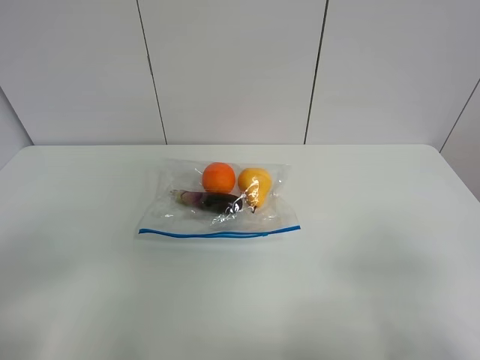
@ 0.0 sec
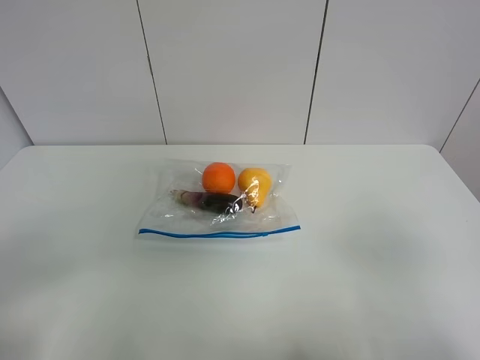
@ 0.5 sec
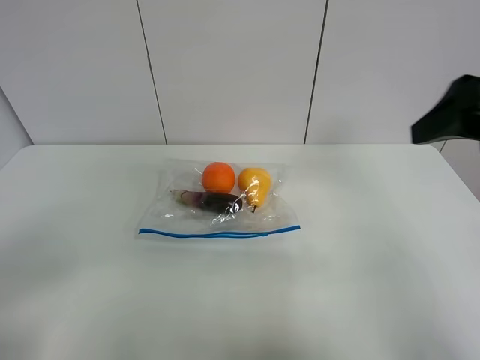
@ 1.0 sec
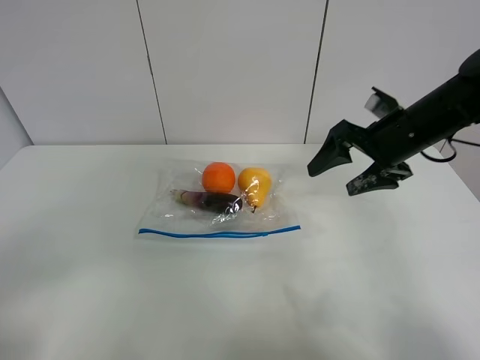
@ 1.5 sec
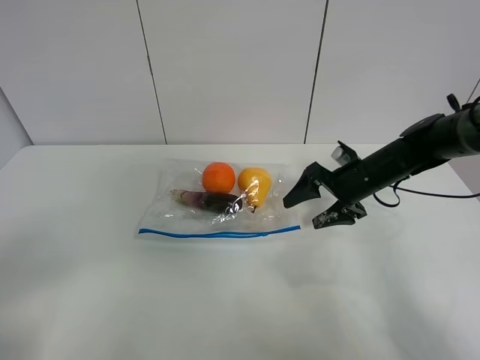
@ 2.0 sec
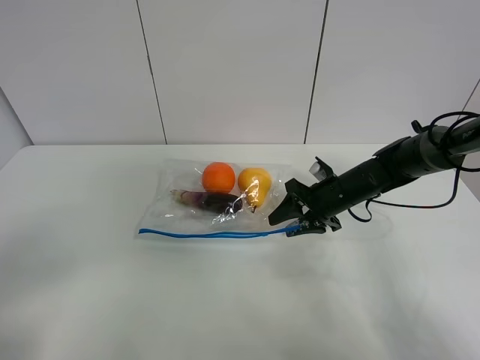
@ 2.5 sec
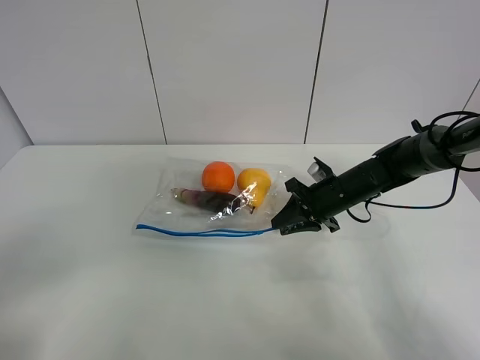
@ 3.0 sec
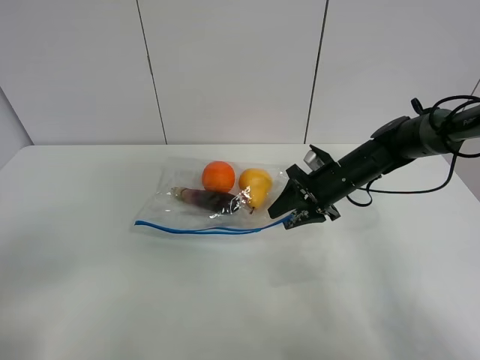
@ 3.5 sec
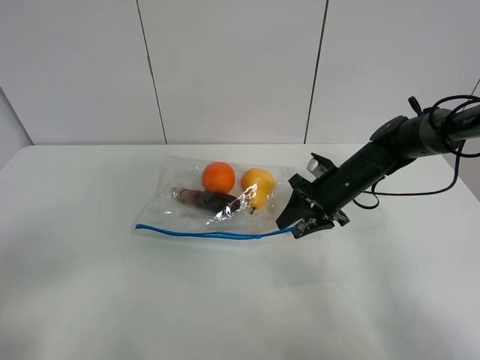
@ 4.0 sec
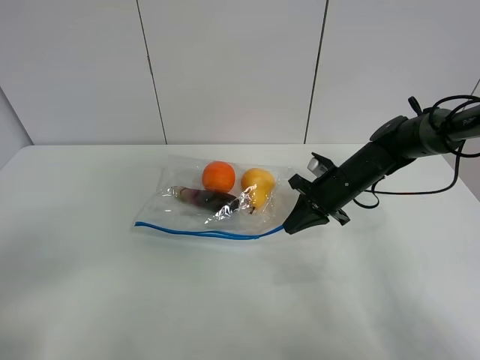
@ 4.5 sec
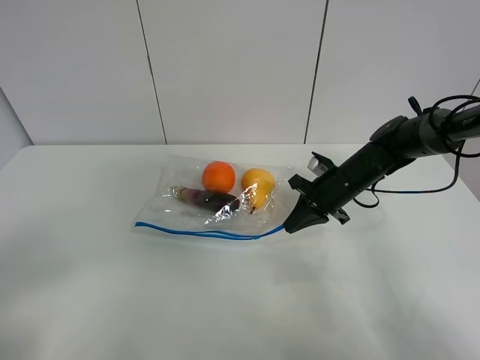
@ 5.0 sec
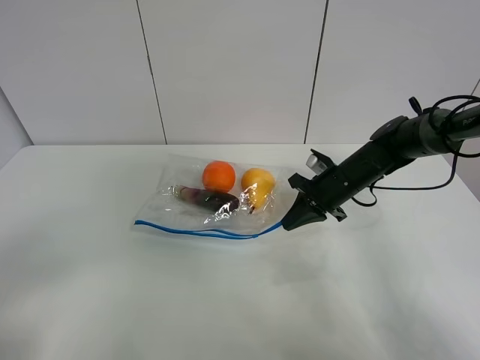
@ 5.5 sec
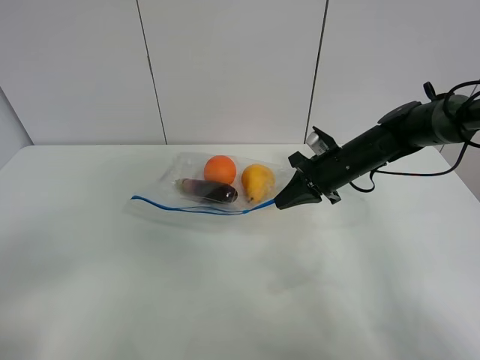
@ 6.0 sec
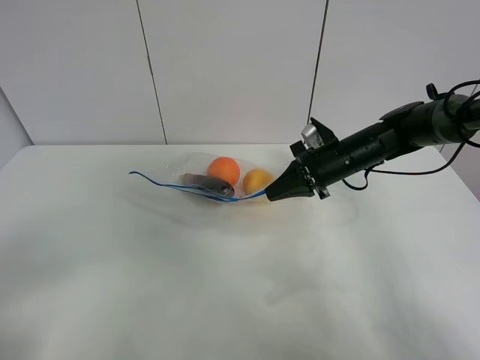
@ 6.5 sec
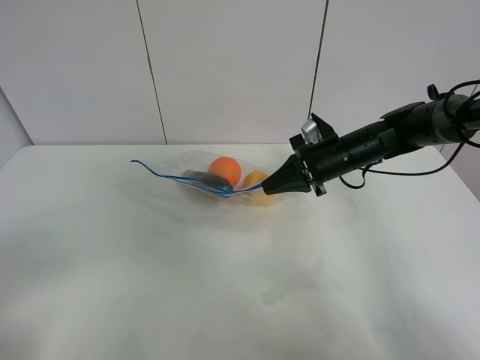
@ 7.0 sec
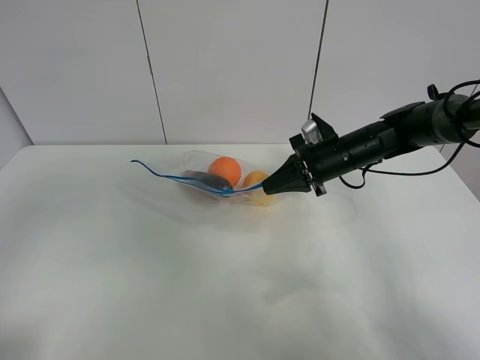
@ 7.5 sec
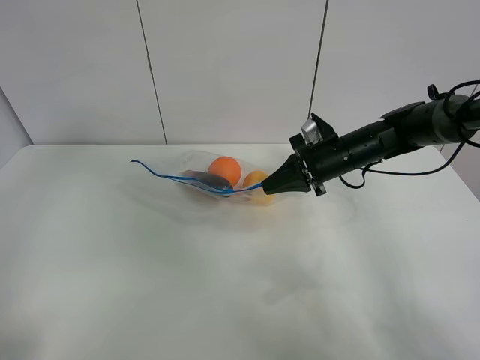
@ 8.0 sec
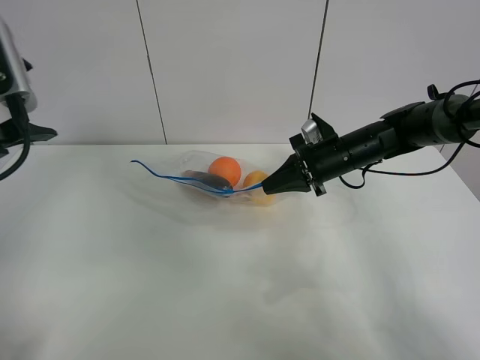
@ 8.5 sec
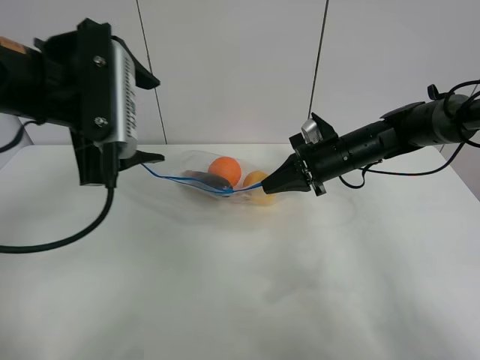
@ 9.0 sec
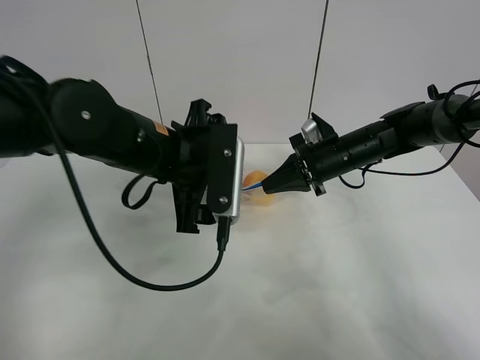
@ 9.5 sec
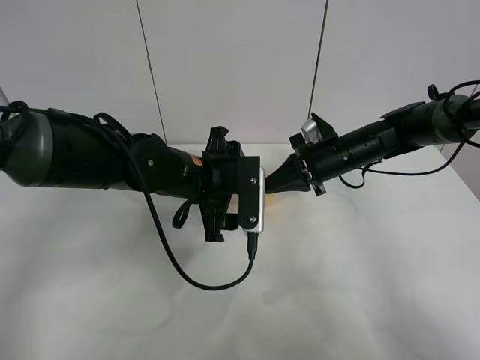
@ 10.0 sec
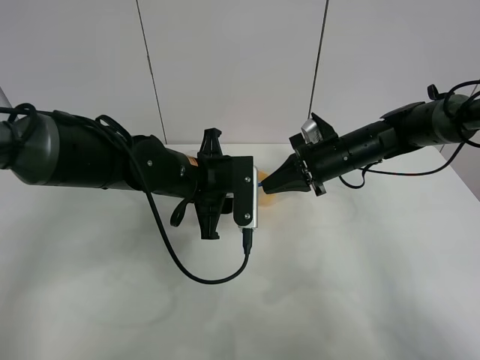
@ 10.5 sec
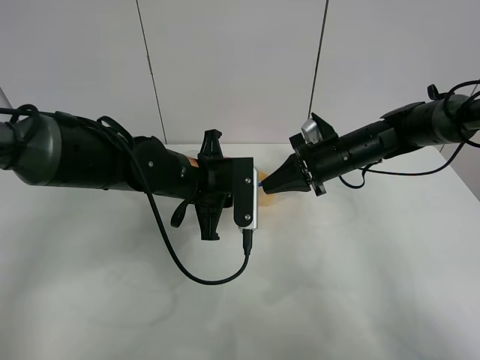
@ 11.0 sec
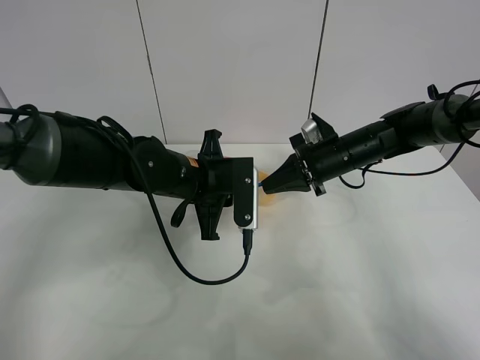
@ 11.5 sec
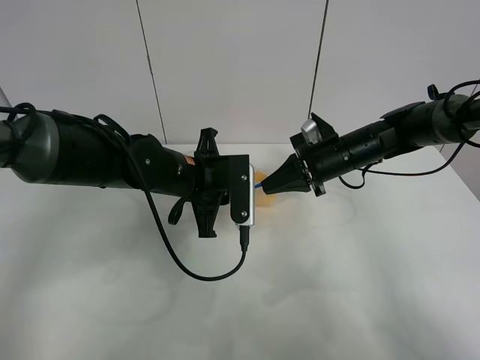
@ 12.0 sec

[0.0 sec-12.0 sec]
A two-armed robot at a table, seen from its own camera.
Step, 0.0 sec to 4.5 sec: Grasp the fruit bag with right gripper.
Step, 5.0 sec to 7.0 sec: Lift the fruit bag with your right gripper.
0.0 sec to 2.0 sec: The right gripper is displaced forward by approximately 35 cm.
2.0 sec to 4.0 sec: The right gripper closes.
4.0 sec to 6.0 sec: The right gripper closes.
6.0 sec to 8.0 sec: The left gripper shifts roughly 25 cm forward and upward.
8.0 sec to 10.0 sec: The left gripper is displaced to the right and downward by approximately 30 cm.
10.0 sec to 12.0 sec: The left gripper closes its fingers.

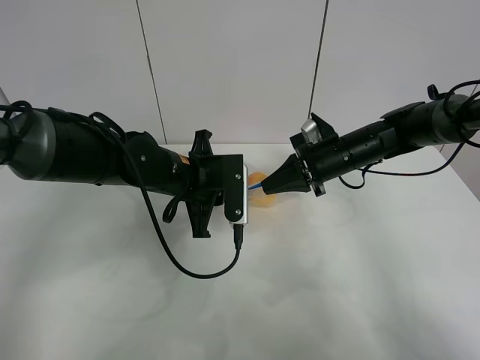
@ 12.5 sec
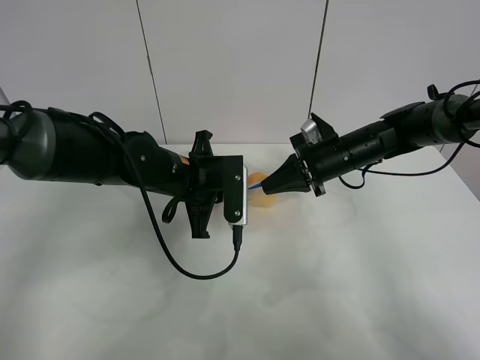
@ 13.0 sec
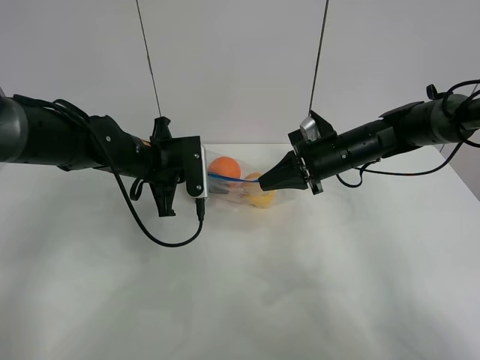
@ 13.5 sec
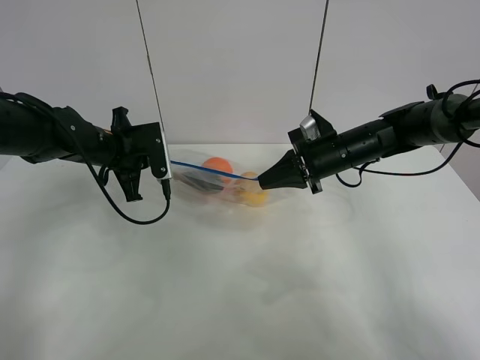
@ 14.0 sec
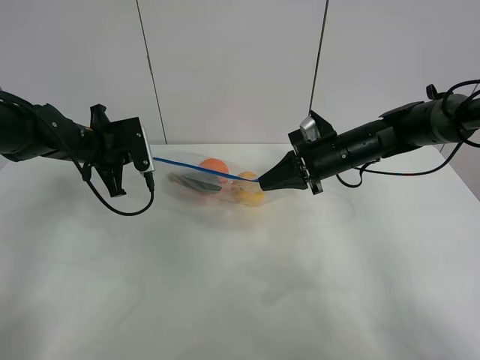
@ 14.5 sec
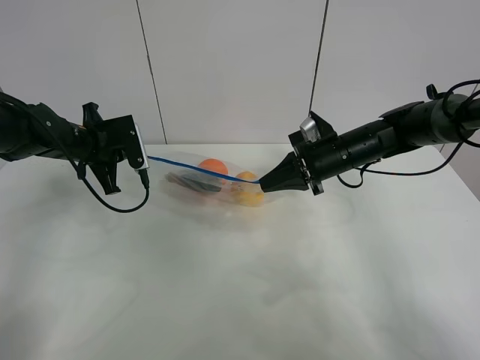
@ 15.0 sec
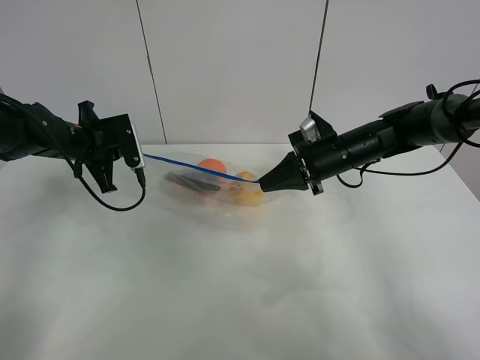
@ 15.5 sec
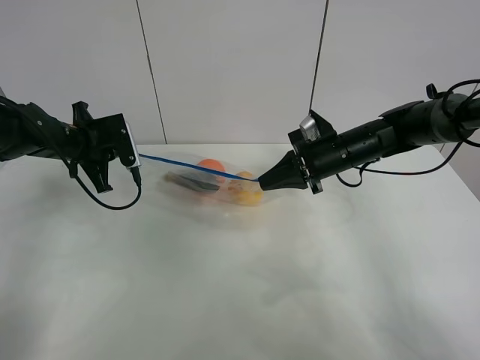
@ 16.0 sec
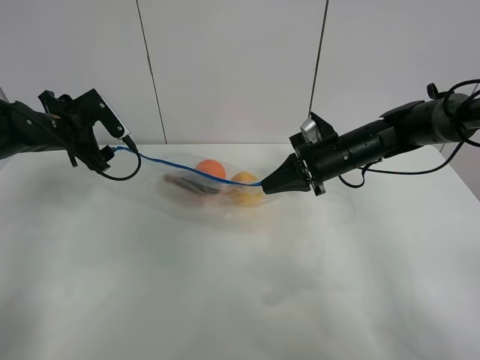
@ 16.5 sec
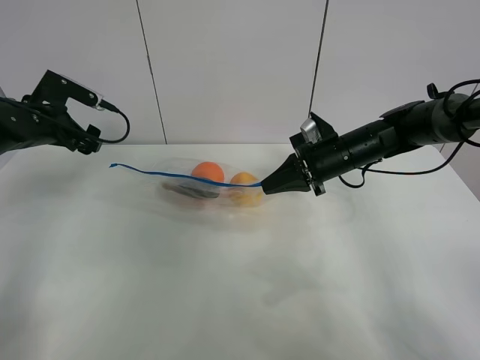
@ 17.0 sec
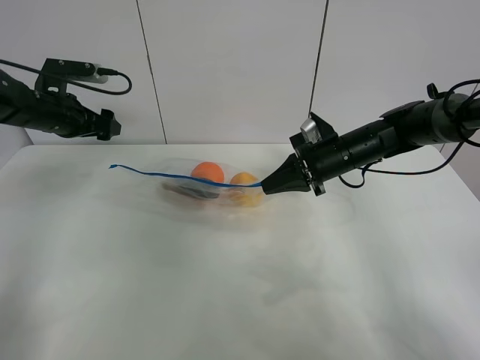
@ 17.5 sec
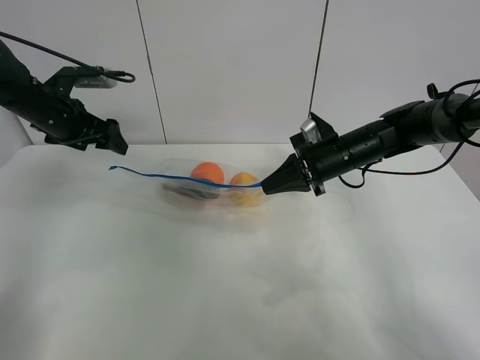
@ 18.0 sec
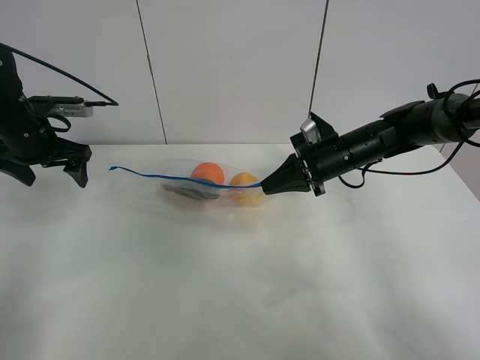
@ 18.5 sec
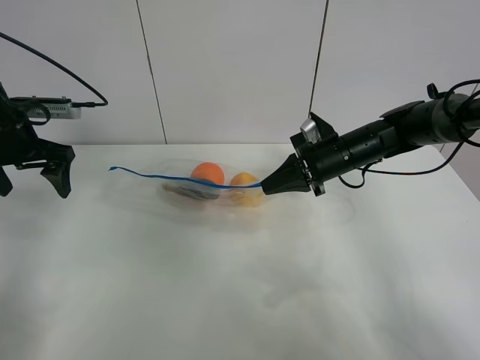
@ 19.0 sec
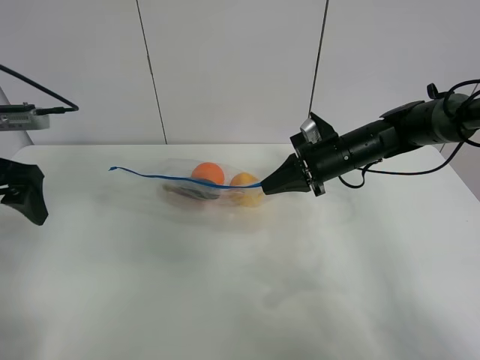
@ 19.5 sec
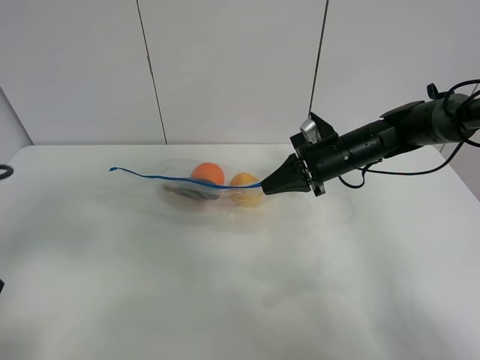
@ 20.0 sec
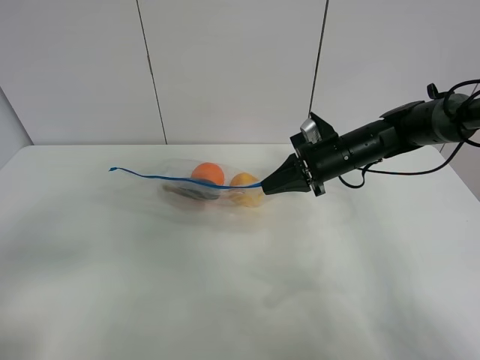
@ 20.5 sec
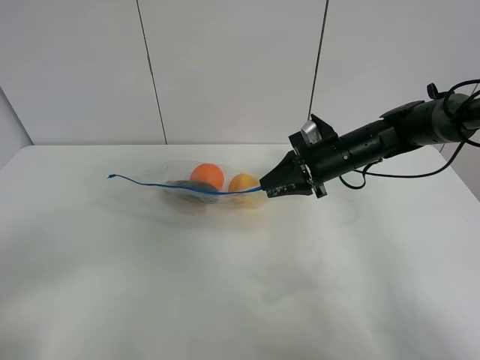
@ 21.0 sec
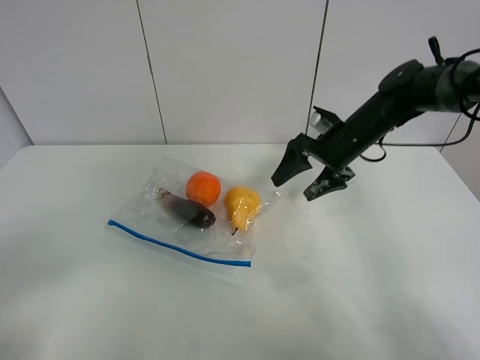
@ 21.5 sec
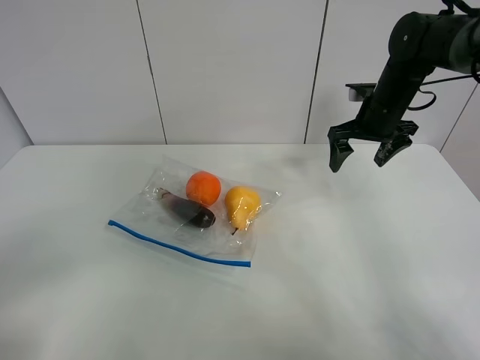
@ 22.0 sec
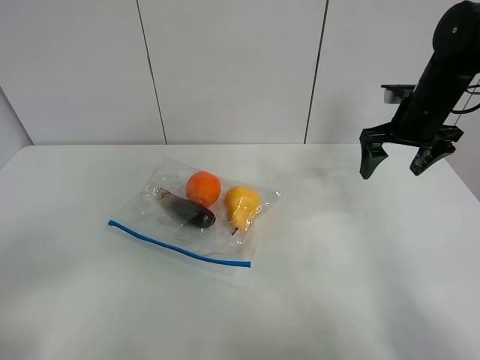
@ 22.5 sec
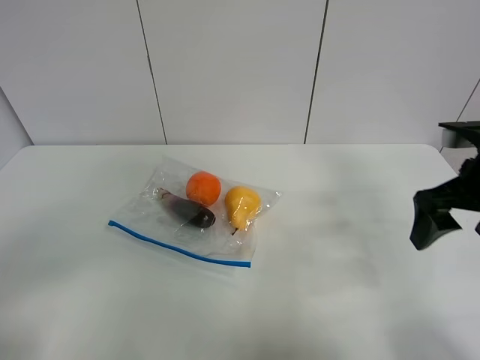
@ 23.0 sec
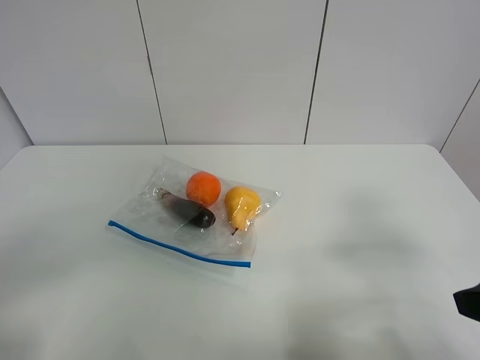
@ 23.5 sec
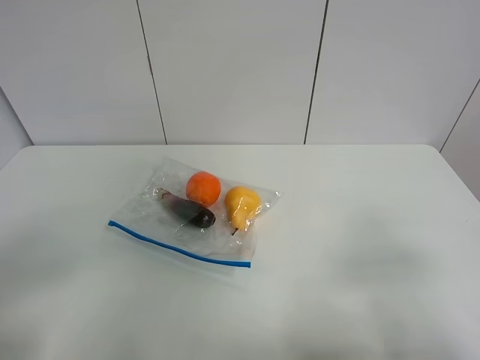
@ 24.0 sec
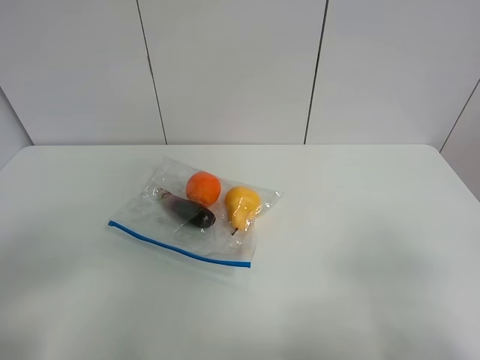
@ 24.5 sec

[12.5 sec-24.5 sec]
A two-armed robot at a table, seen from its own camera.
Step, 12.5 sec to 16.5 sec: Pull the fruit bag with left gripper.
12.5 sec to 14.5 sec: The left gripper is displaced to the left by approximately 15 cm.
14.5 sec to 16.5 sec: The left gripper travels to the left by some 5 cm, and opens.
18.5 sec to 20.5 sec: The left gripper goes approximately 35 cm backward.
20.5 sec to 22.5 sec: The right gripper goes about 15 cm to the right and upward, and opens its fingers. The left gripper goes approximately 5 cm backward.
22.5 sec to 24.5 sec: The right gripper goes roughly 40 cm backward.
